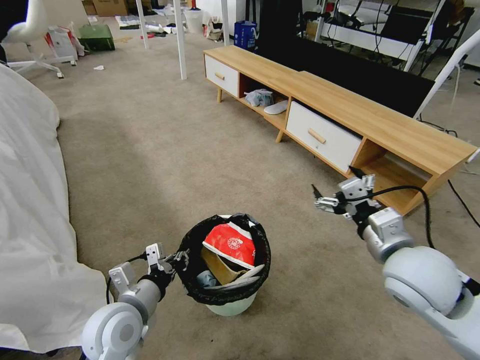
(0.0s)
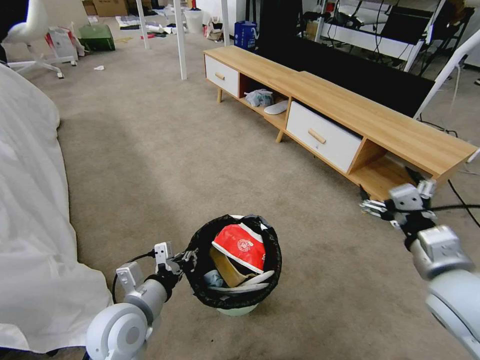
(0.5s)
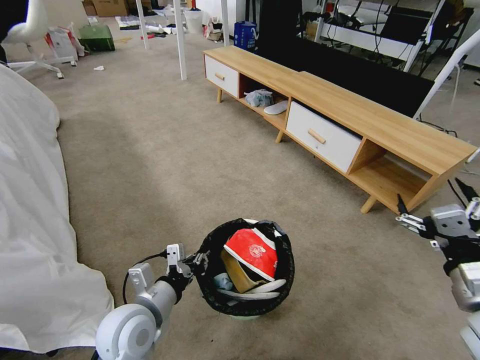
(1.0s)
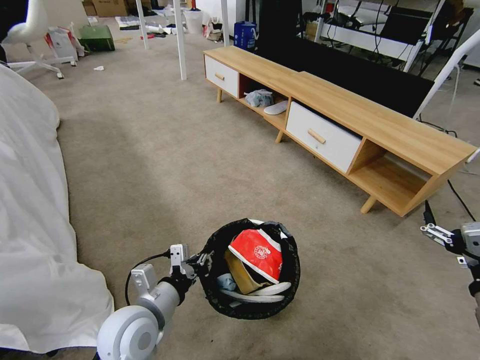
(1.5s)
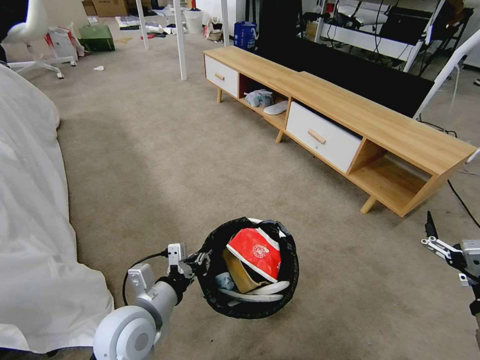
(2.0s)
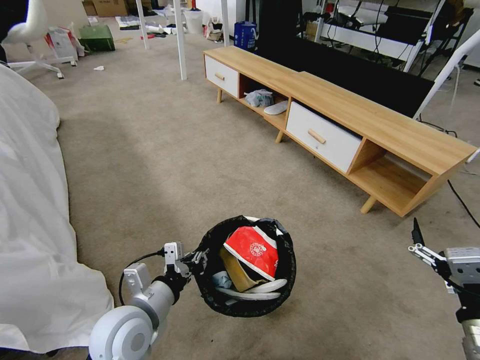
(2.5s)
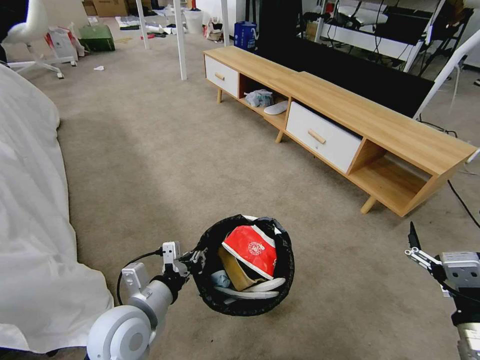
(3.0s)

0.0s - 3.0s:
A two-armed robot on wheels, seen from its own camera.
Task of the whole recording: Pick up the trash bin and place the garbage on the floor into it.
0.0s - 1.5s: The right gripper travels backward and to the right by roughly 15 cm.
1.5s - 3.0s: The right gripper ends up some 5 cm from where it was.
